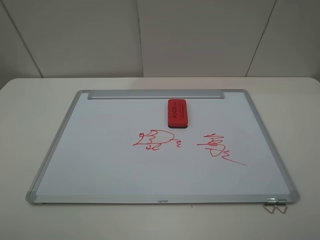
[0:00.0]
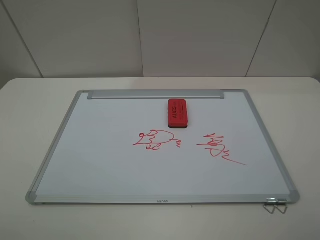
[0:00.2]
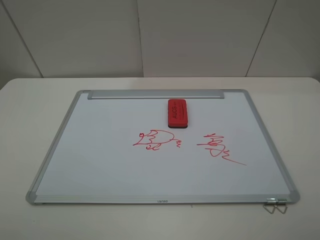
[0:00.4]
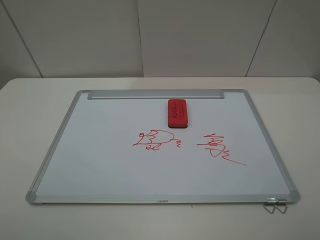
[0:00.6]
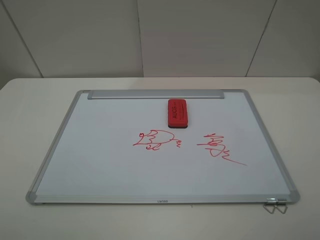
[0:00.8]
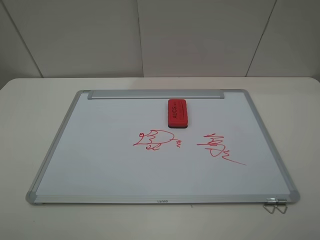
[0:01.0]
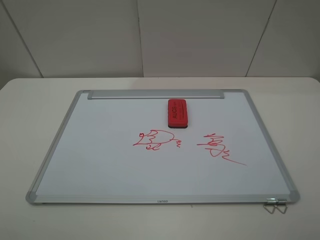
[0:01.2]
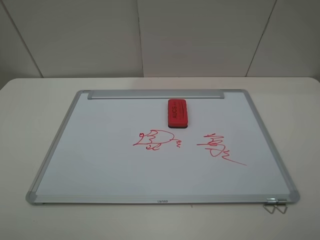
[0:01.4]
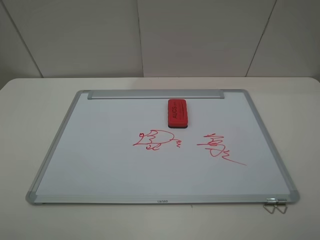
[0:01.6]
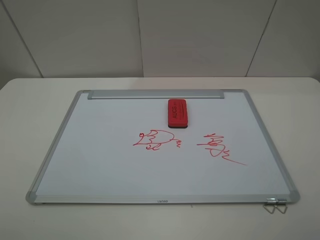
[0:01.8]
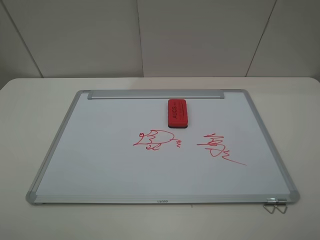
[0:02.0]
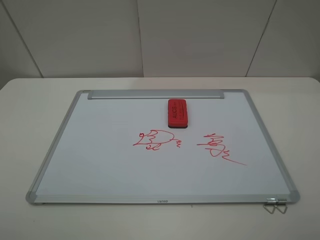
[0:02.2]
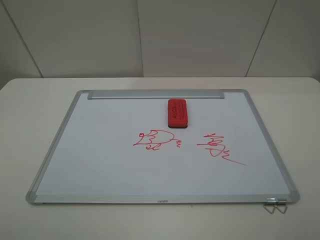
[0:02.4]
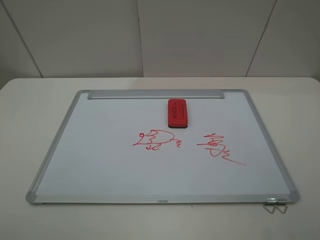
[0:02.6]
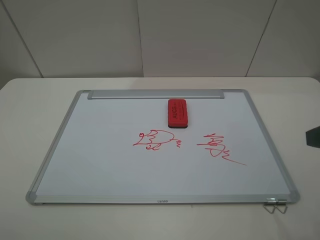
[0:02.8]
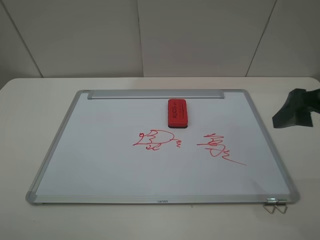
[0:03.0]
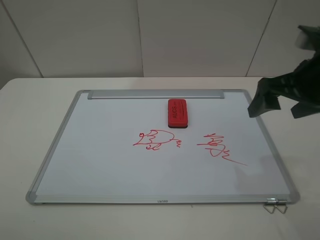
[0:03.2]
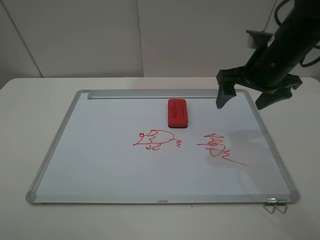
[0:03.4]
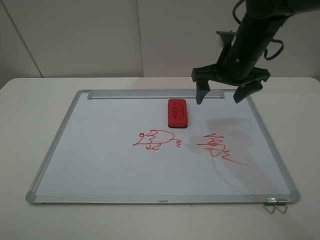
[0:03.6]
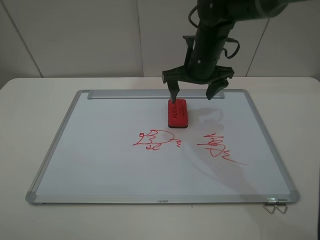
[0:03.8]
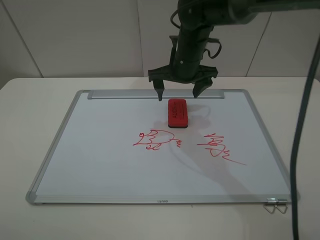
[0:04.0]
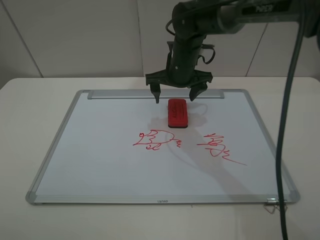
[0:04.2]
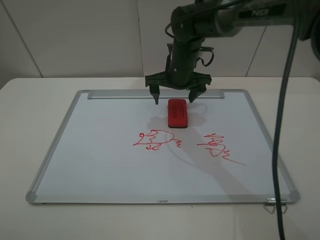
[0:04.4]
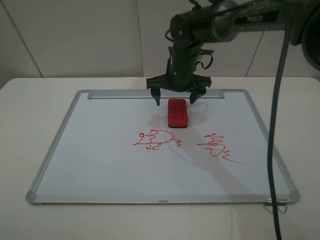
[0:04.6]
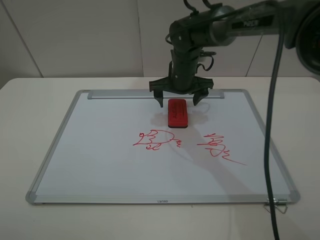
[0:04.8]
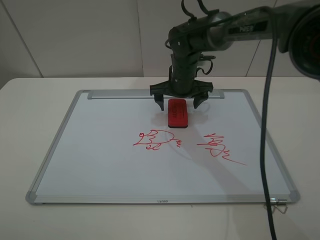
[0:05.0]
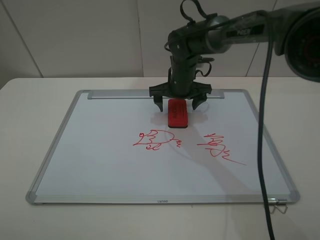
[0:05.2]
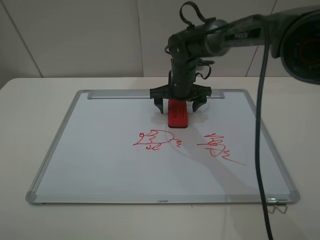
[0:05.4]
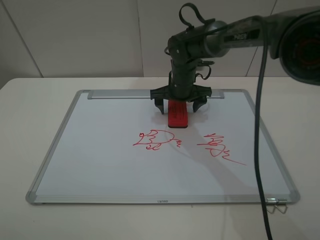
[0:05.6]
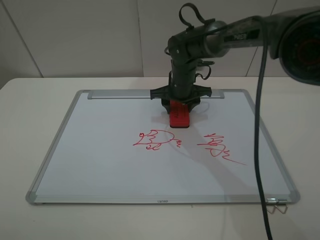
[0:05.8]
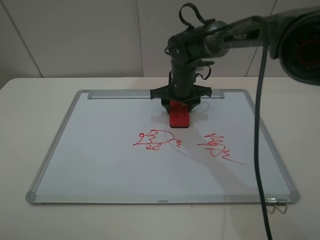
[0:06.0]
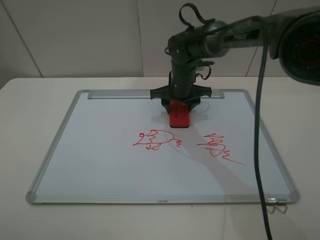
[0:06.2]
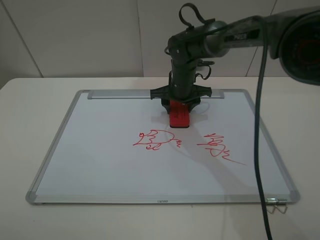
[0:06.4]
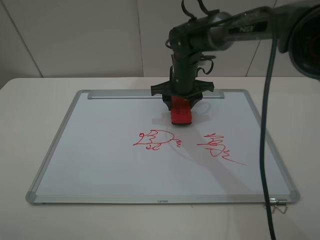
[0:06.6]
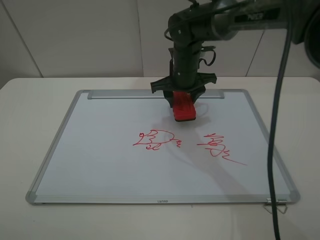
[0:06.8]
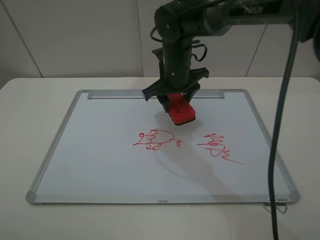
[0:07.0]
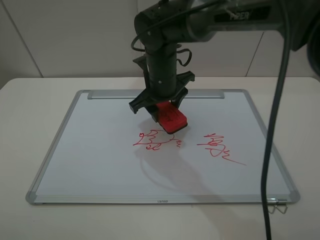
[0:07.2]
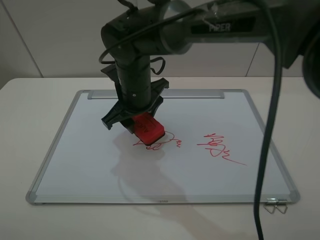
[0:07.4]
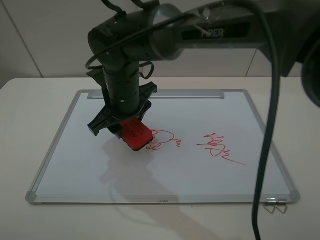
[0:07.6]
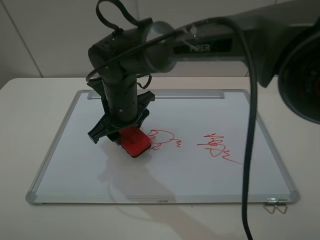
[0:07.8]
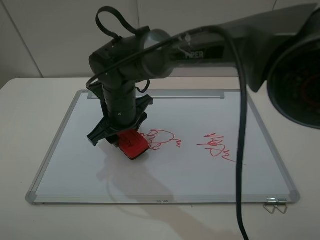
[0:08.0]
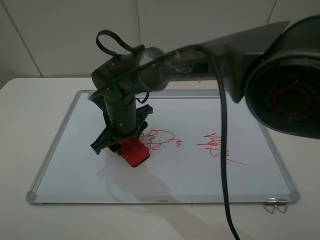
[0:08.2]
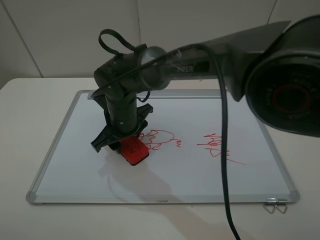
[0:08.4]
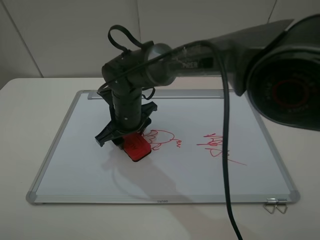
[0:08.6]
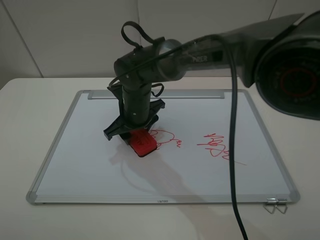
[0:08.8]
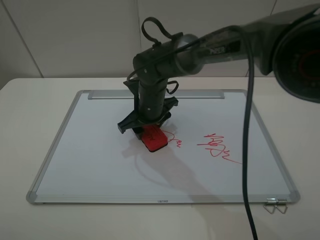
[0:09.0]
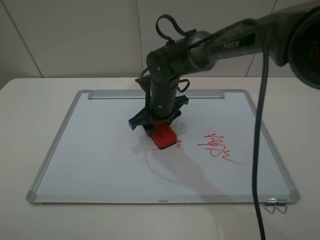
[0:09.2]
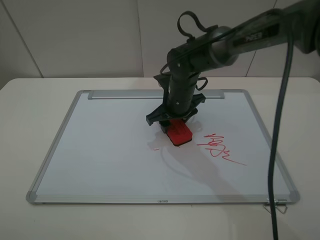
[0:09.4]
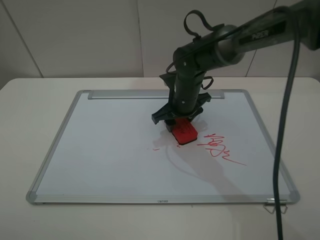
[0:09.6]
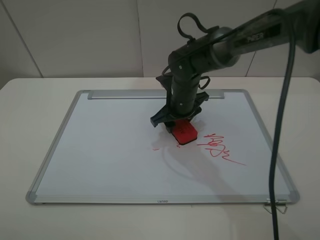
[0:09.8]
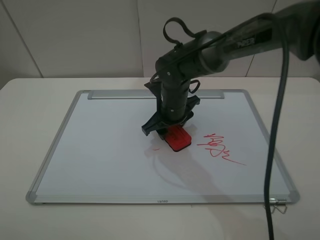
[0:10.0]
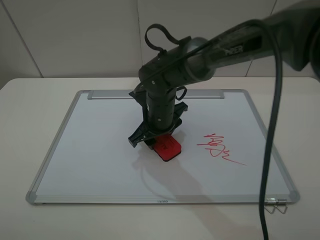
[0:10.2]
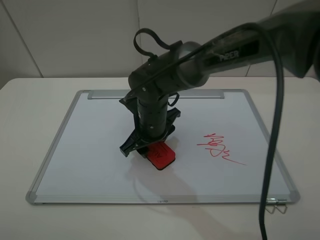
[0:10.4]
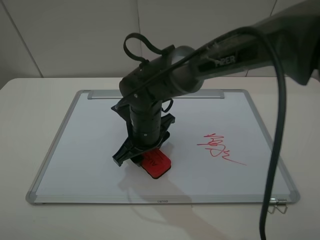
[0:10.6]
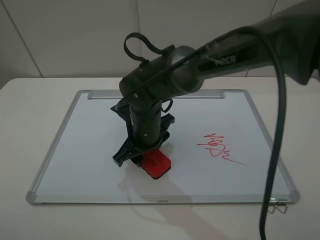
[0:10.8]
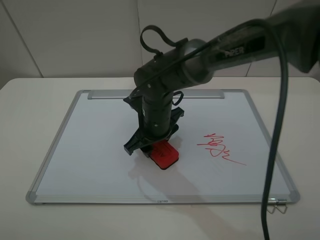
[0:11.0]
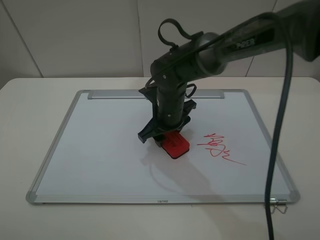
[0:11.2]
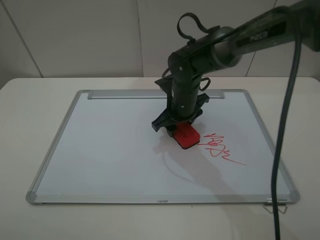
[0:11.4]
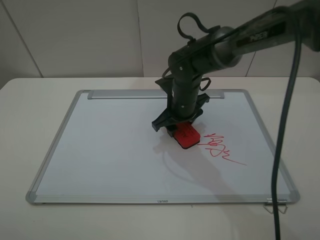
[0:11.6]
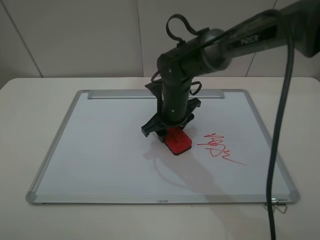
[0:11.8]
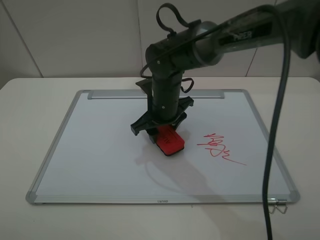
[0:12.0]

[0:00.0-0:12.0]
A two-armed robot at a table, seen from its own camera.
Step, 0:00.0 to 0:05.8: Grasp the eraser with the right gripper.
0:00.0 to 0:01.6: Neither gripper changes place.
0:01.6 to 0:03.0: The right gripper moves forward, some 20 cm.
0:03.0 to 0:04.4: The right gripper shifts roughly 30 cm forward, to the left and downward.
0:04.4 to 0:06.0: The right gripper ends up about 5 cm from where it was, and closes up.
0:06.0 to 0:07.6: The right gripper shifts about 20 cm to the left, backward and upward.
0:07.6 to 0:09.0: The right gripper travels downward, to the right and forward by roughly 10 cm.
0:09.0 to 0:10.4: The right gripper travels backward by roughly 5 cm, and goes to the right and returns, approximately 5 cm each way.

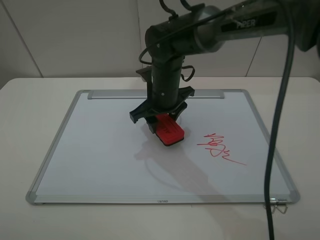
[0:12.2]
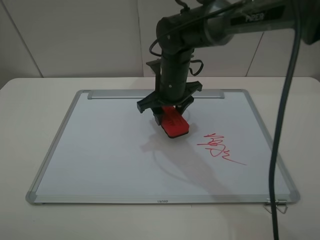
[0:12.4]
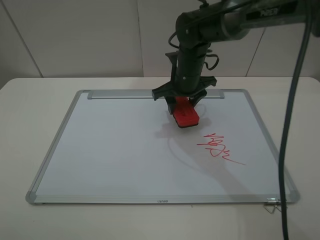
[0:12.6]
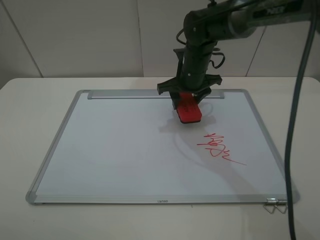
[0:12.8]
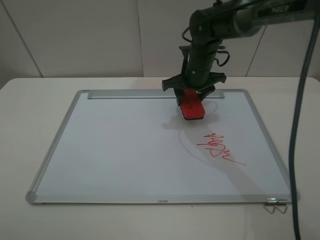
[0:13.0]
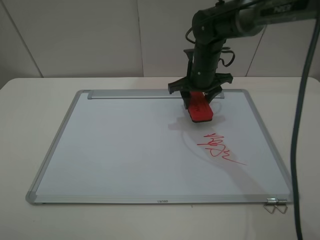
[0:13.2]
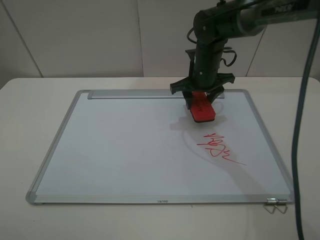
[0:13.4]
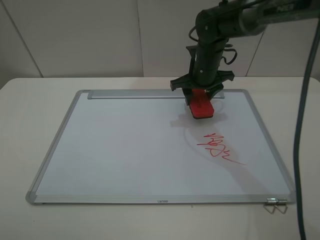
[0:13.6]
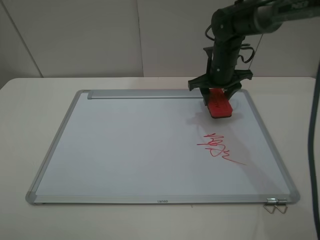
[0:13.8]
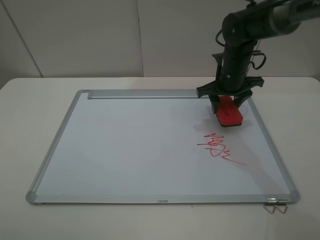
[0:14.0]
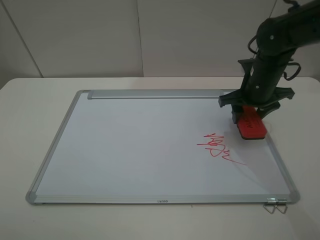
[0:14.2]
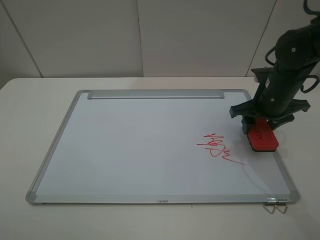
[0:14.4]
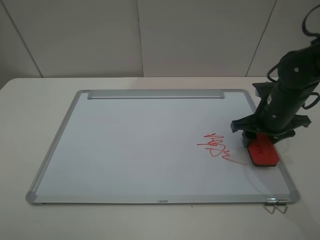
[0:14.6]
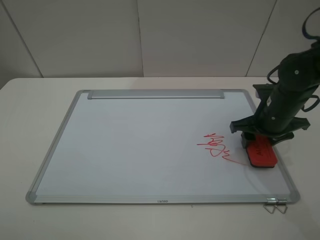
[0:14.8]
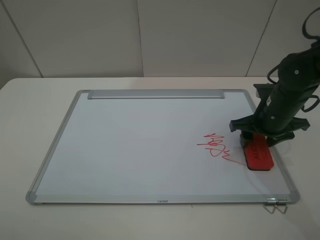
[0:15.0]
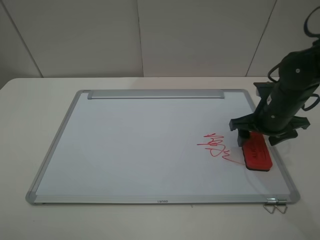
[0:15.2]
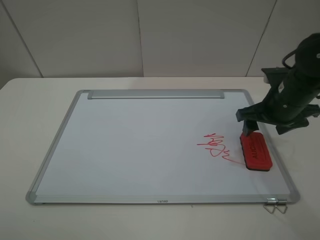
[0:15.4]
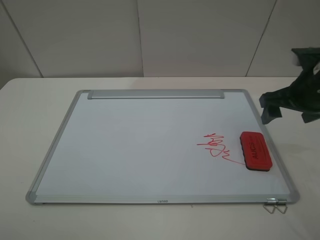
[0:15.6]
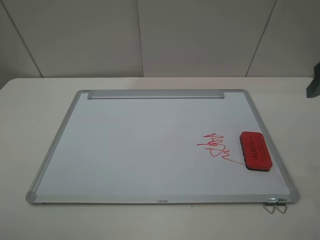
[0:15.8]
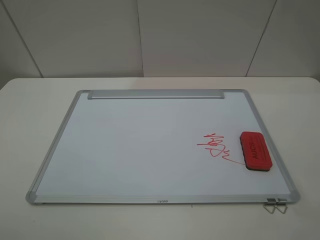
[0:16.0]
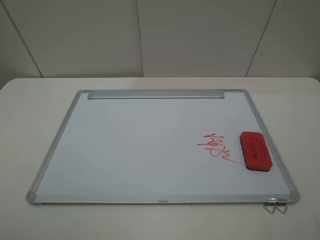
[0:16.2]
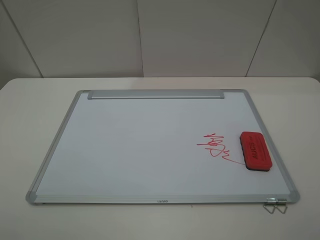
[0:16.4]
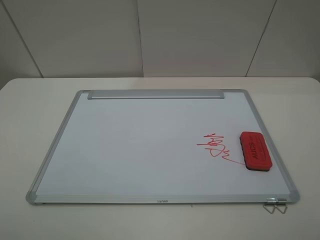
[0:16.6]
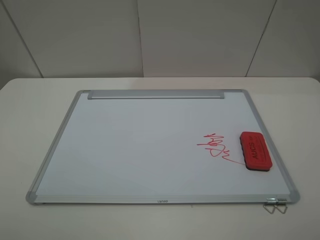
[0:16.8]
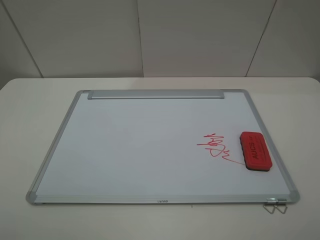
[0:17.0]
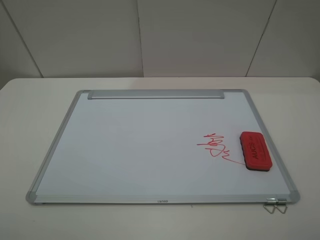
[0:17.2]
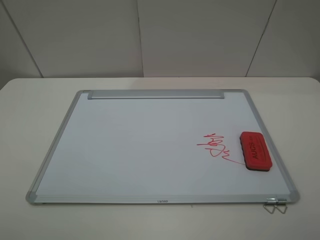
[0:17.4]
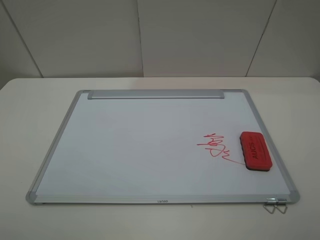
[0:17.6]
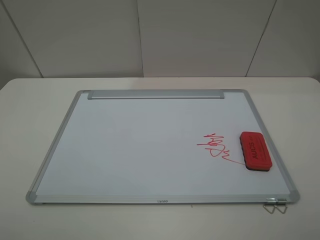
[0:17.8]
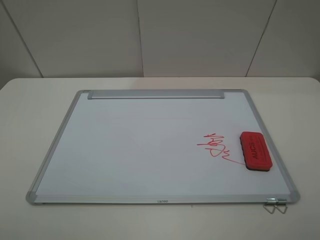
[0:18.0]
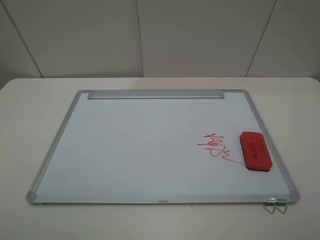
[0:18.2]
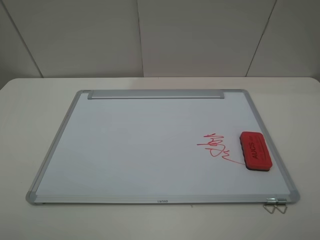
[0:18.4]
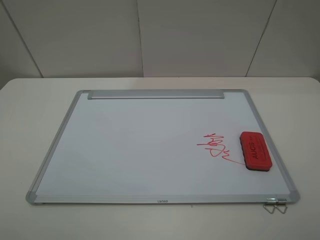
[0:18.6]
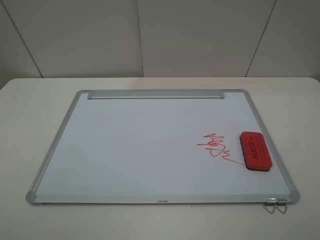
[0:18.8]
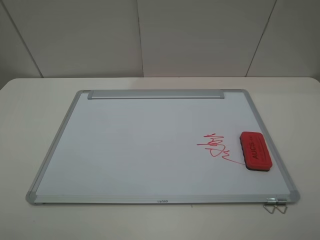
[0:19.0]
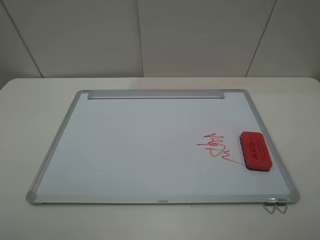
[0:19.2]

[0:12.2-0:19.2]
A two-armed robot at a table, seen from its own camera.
Step, 0:12.8 to 0:15.2: Place the eraser with the right gripper.
0:12.2 to 0:13.6: The right gripper moves to the right and forward, about 10 cm.
0:13.6 to 0:15.0: The right gripper shifts roughly 20 cm backward and to the right.
0:15.0 to 0:16.4: The right gripper heads backward and upward, covering some 35 cm, and opens.
0:17.8 to 0:19.2: Both grippers stay about where they are.

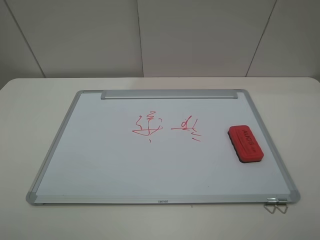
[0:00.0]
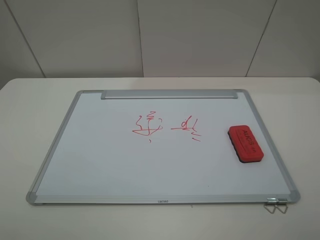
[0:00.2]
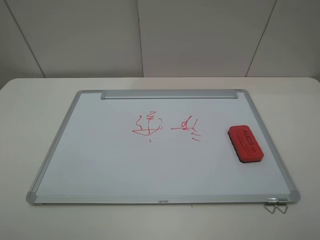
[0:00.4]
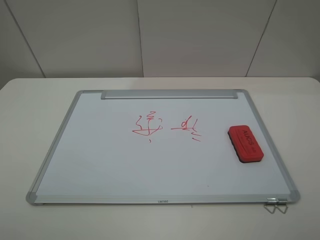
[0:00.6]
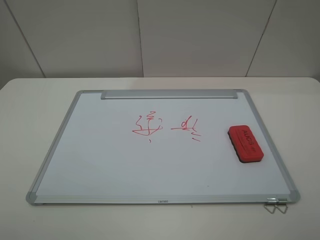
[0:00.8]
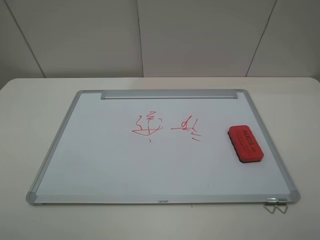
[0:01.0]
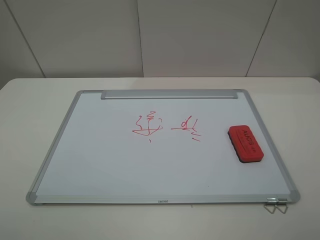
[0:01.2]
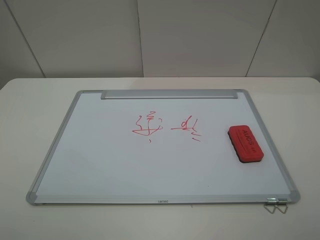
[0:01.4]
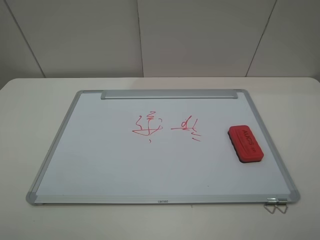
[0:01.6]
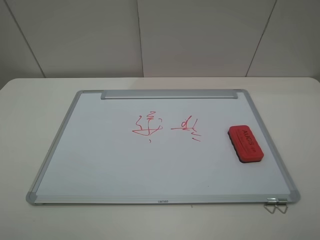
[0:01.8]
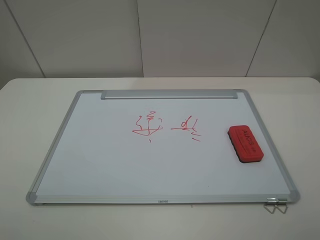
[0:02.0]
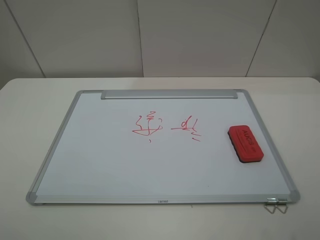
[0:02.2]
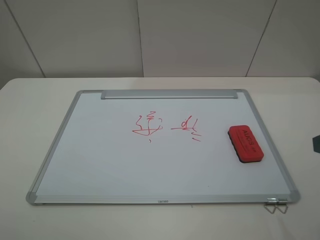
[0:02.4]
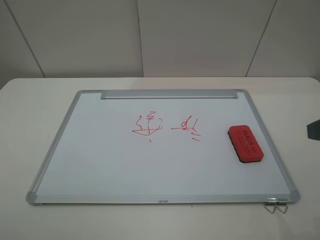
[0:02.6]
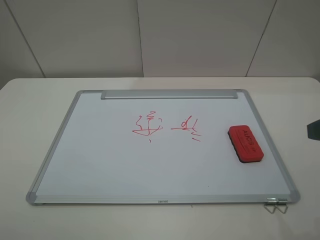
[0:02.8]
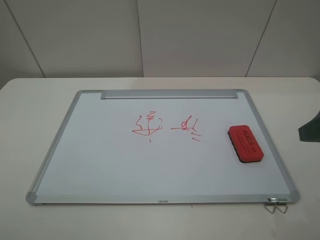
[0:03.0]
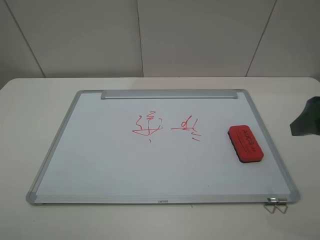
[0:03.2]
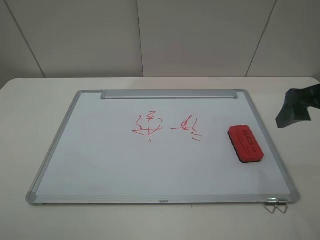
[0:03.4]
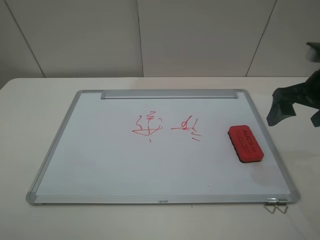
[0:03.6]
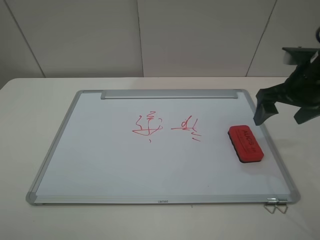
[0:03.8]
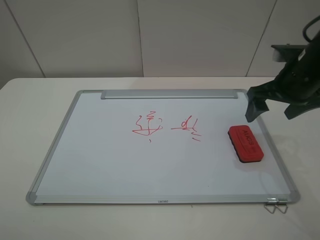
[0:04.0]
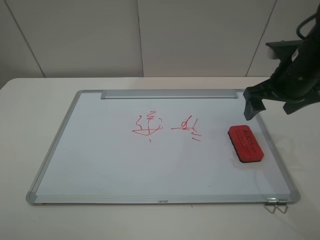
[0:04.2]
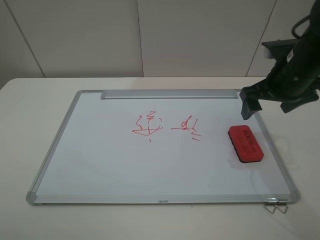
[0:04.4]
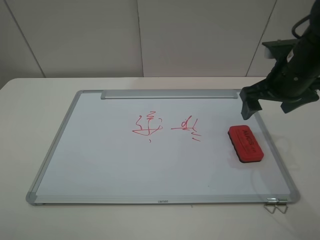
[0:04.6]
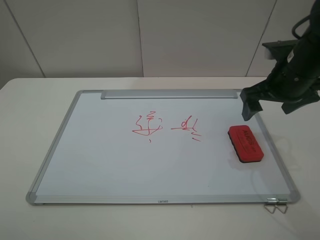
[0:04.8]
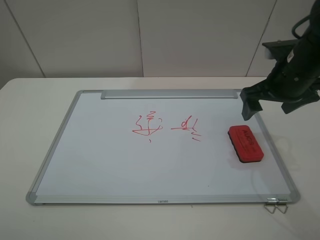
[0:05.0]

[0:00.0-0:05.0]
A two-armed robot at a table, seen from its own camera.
0:00.0 to 0:01.6: The two grippers keep their place.
0:01.6 to 0:03.4: The right gripper shifts about 25 cm forward.
0:03.4 to 0:05.0: The right gripper moves forward, about 5 cm.
